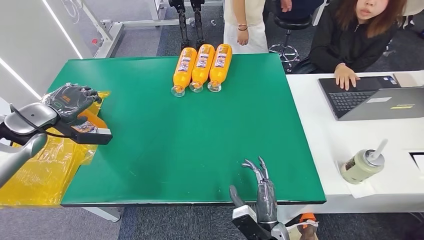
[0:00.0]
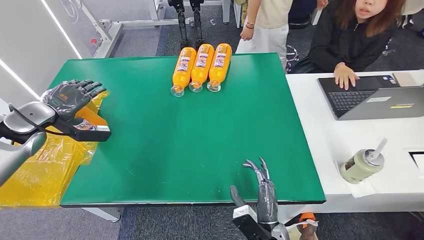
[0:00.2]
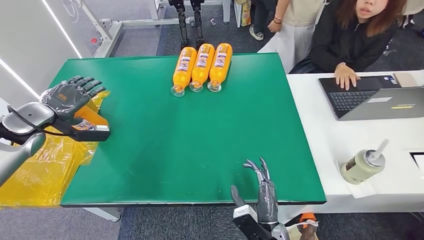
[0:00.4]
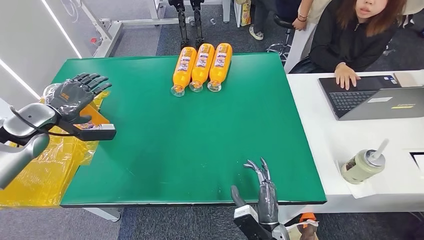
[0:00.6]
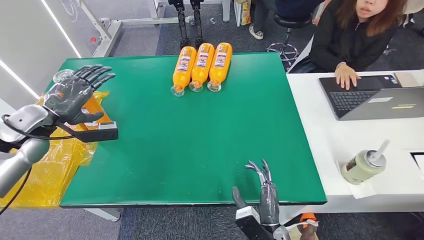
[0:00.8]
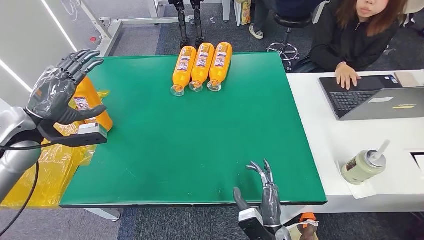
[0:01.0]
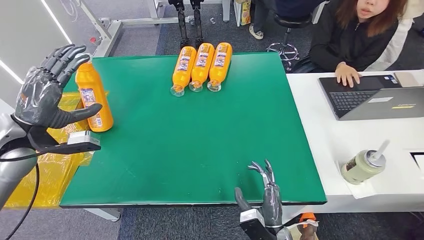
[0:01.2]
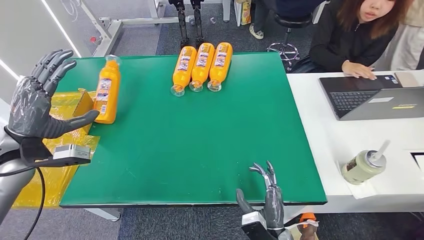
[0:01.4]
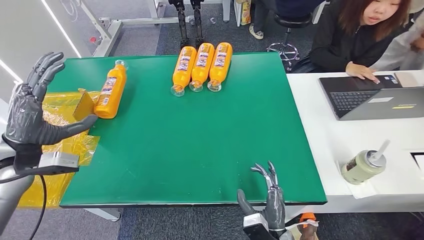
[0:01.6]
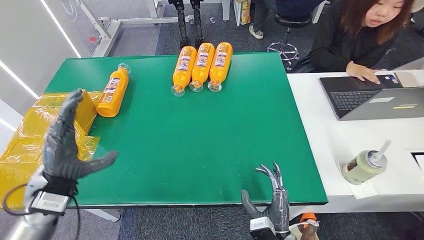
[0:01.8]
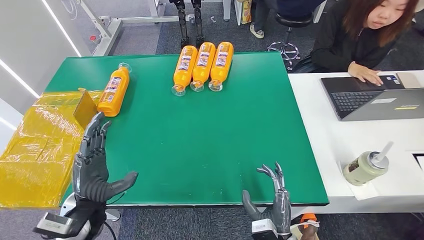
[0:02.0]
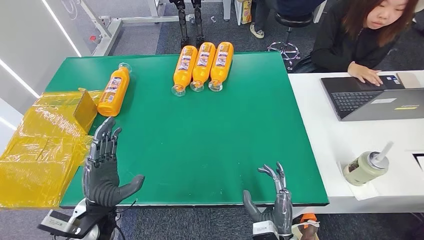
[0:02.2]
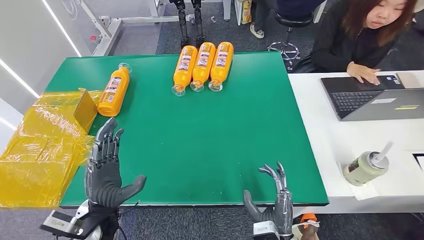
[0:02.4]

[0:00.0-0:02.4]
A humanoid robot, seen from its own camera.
Step, 0:00.0 to 0:02.2: Turn the bottle to the front side.
0:00.0 to 0:01.2: The left hand moves to the right, approximately 5 cm.
